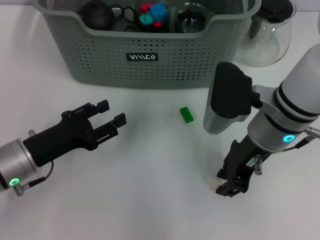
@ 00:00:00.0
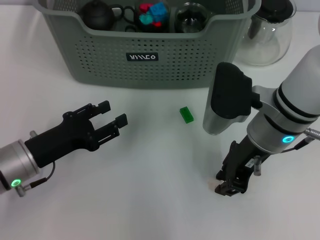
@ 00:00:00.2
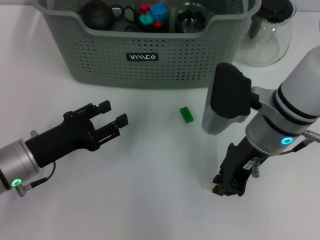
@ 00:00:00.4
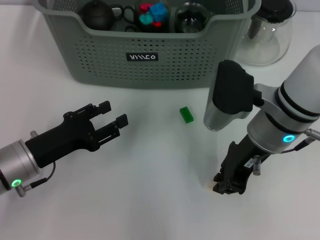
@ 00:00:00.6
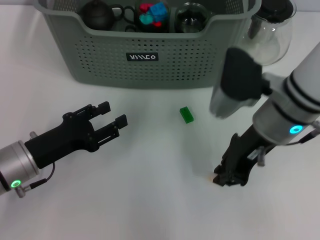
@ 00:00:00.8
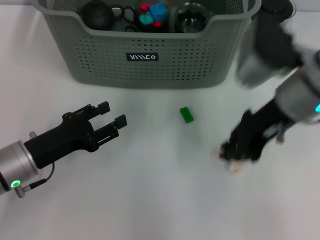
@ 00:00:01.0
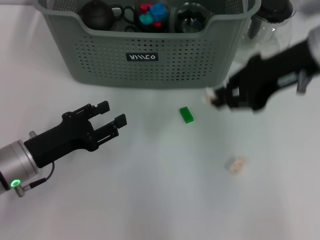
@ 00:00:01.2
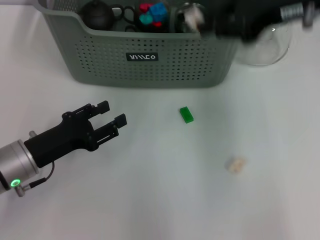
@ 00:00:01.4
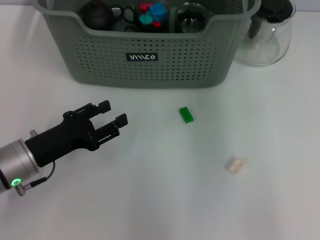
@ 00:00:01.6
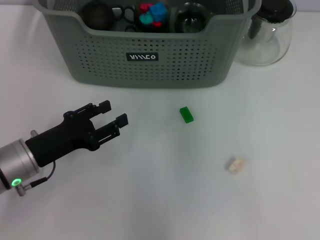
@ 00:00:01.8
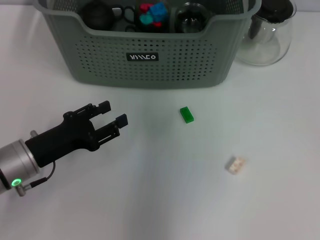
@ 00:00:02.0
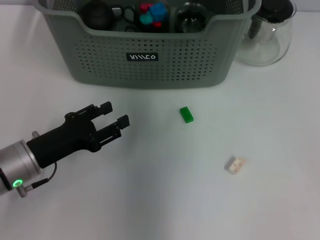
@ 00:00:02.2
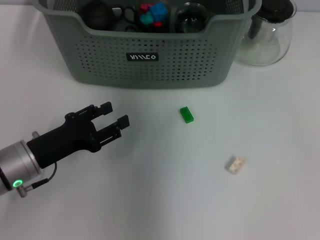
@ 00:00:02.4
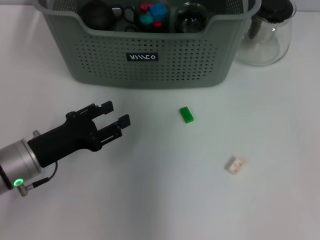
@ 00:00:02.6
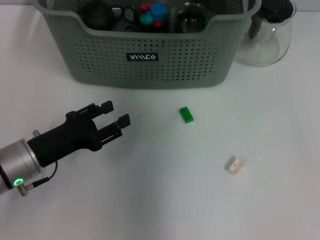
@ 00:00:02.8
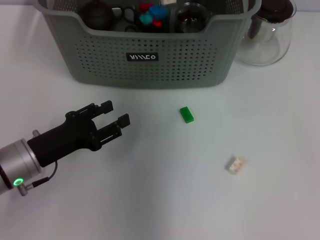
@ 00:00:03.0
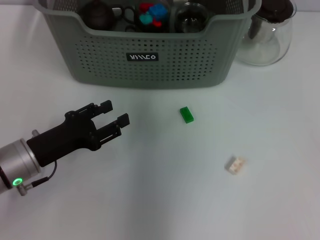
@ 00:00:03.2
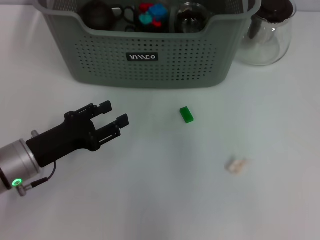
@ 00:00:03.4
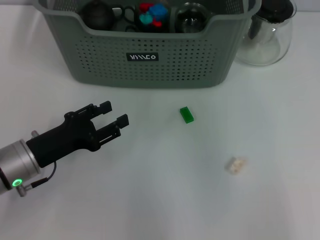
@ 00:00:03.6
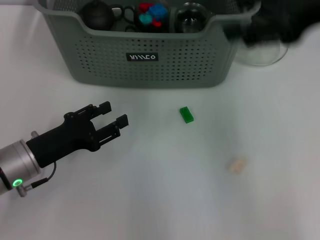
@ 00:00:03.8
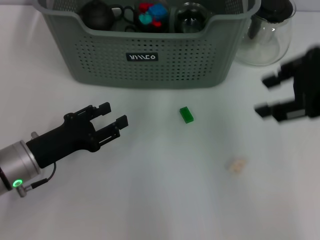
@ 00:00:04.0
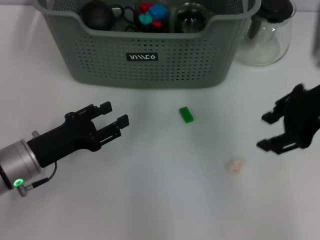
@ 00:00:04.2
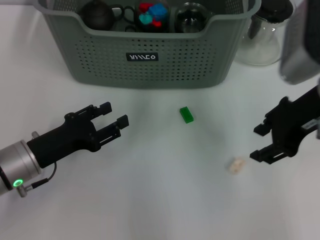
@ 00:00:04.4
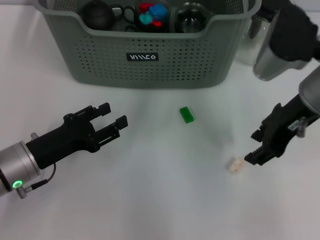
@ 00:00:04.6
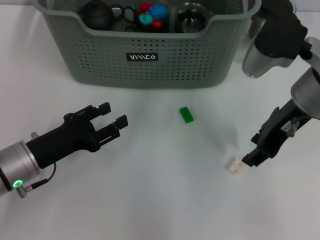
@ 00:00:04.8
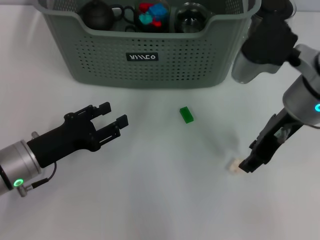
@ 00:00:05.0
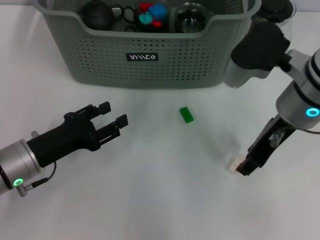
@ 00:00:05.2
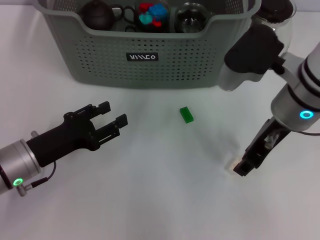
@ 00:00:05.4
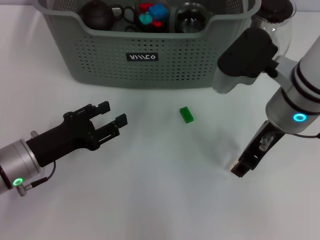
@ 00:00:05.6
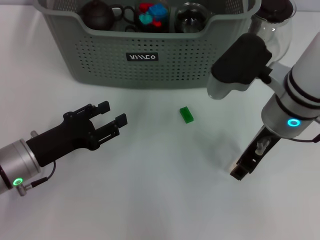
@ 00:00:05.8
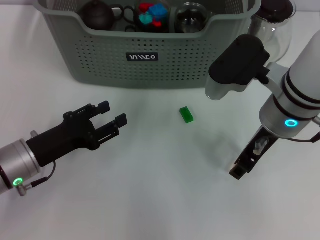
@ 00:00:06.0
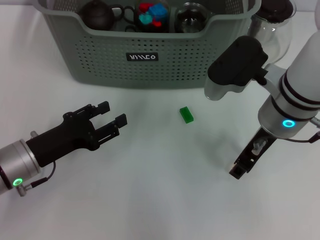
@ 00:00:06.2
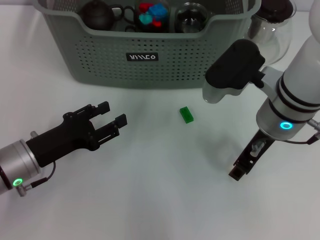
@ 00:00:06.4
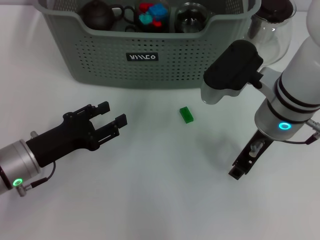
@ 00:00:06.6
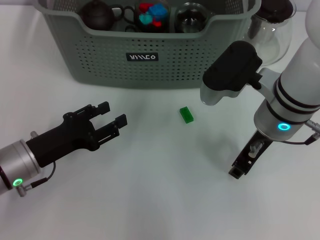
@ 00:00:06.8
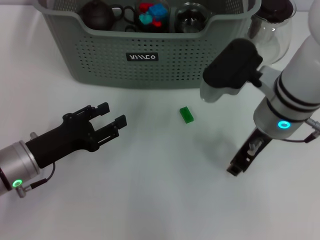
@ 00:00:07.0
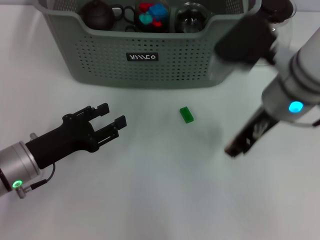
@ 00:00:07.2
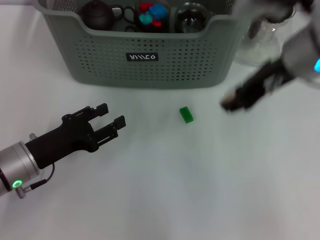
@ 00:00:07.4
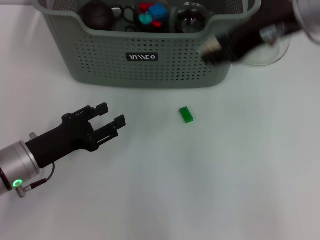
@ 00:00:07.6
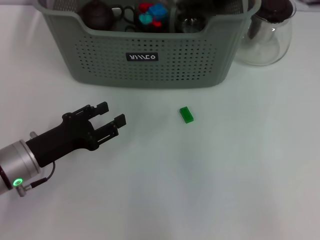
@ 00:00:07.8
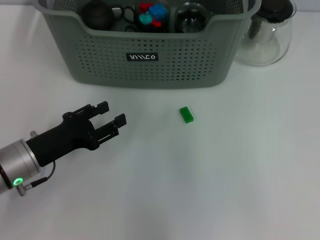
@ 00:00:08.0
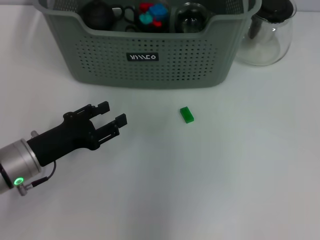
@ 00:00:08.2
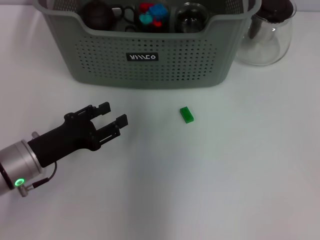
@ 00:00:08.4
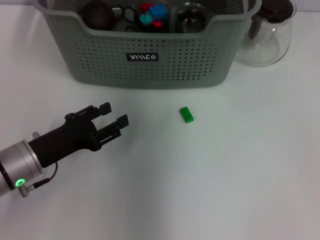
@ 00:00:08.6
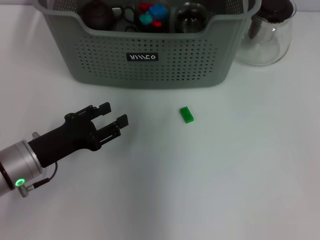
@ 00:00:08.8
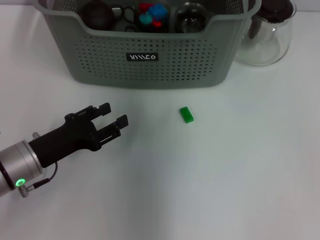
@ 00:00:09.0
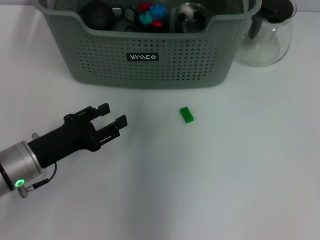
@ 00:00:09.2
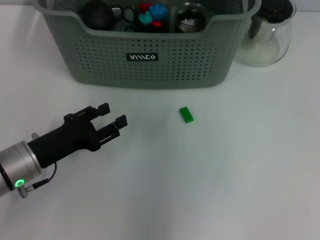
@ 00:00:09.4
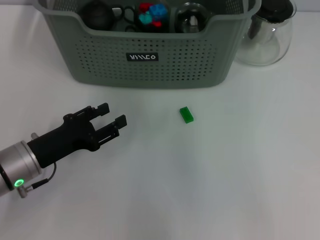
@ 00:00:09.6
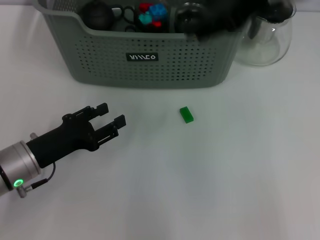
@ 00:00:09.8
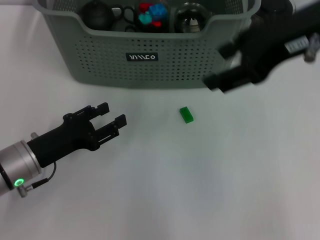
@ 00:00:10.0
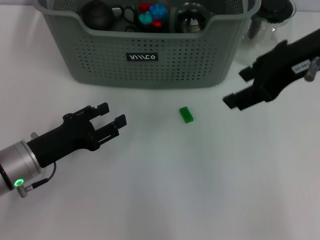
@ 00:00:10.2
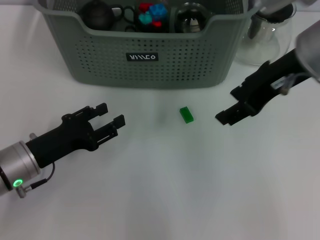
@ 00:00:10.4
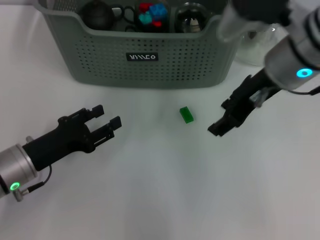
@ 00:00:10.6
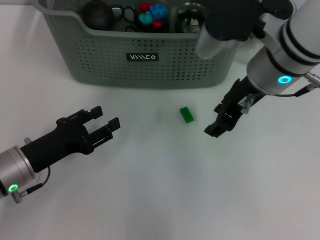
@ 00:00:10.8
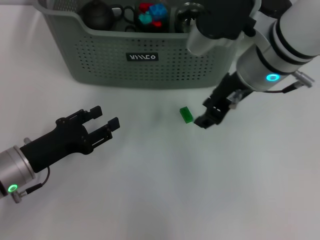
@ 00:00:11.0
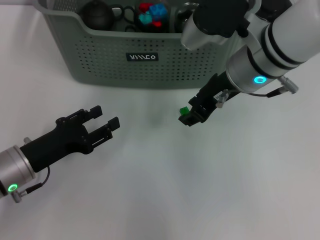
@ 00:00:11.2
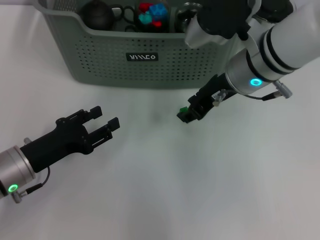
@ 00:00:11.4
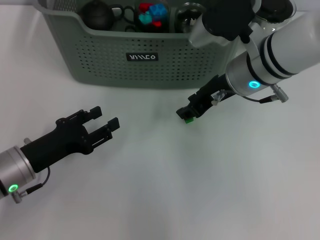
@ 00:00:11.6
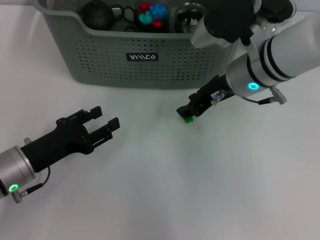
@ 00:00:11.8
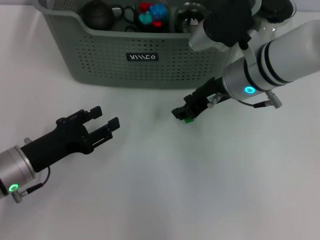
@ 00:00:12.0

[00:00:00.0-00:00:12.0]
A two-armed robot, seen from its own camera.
Task of the whole recording: pick up the teacup on the table and place it into the storage bin, pick up the block on the table and place it into the storage bin.
Step, 00:00:00.6 to 00:00:02.8: Place the white block in the storage box with right gripper.
Step, 00:00:03.0 to 00:00:06.8: Grasp the white block with right gripper.
Step, 00:00:07.0 to 00:00:09.0: Place the white block in the storage box with right gripper.
00:00:00.0 to 00:00:01.6: The right gripper travels upward by approximately 15 cm.
00:00:01.6 to 00:00:03.0: The right gripper is displaced to the left, forward and downward by approximately 15 cm.
00:00:03.0 to 00:00:04.4: The right gripper heads backward and to the right, covering about 20 cm.
00:00:04.4 to 00:00:06.0: The right gripper is displaced to the left and downward by approximately 10 cm.
00:00:06.0 to 00:00:07.6: The right gripper goes some 15 cm upward.
00:00:07.6 to 00:00:09.0: The right gripper heads forward, to the left and downward, covering roughly 20 cm.
00:00:09.0 to 00:00:10.4: The right gripper shifts approximately 20 cm backward and to the right.
00:00:10.4 to 00:00:12.0: The right gripper is displaced downward by about 10 cm.

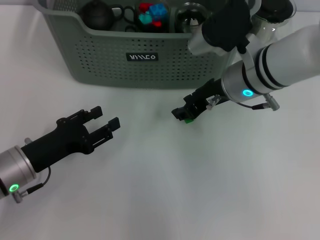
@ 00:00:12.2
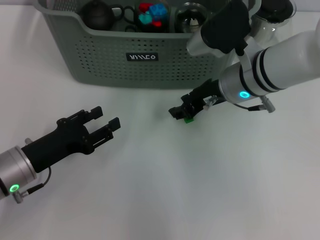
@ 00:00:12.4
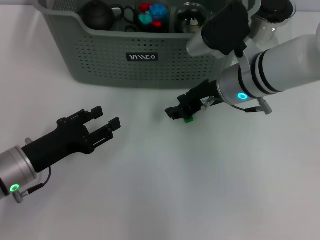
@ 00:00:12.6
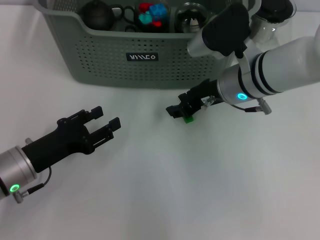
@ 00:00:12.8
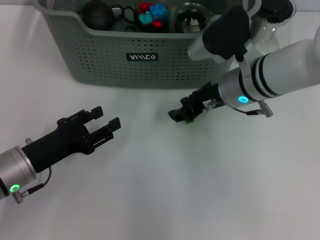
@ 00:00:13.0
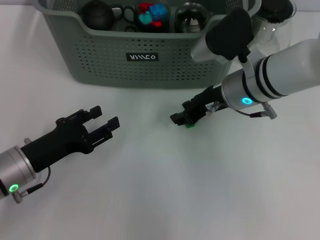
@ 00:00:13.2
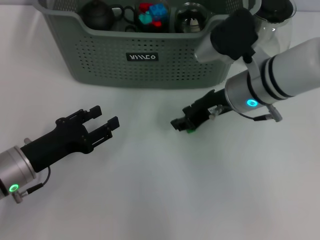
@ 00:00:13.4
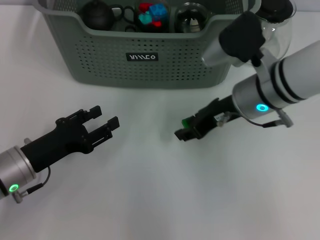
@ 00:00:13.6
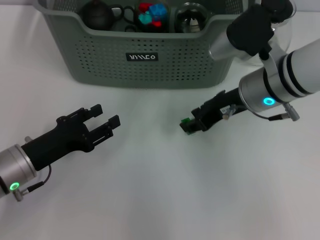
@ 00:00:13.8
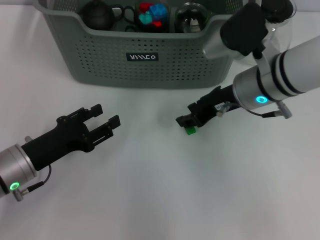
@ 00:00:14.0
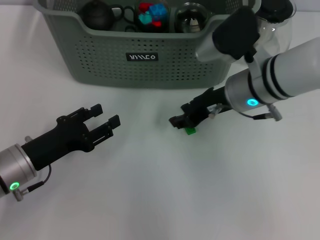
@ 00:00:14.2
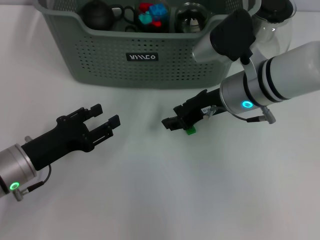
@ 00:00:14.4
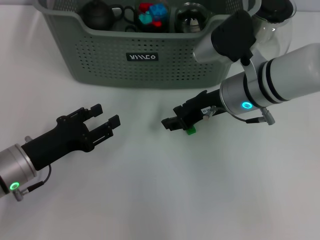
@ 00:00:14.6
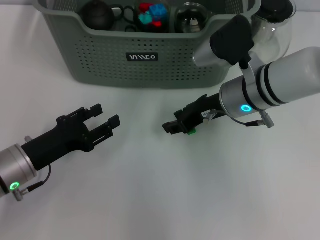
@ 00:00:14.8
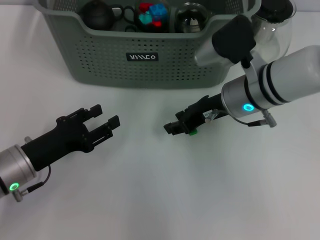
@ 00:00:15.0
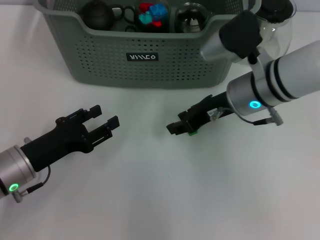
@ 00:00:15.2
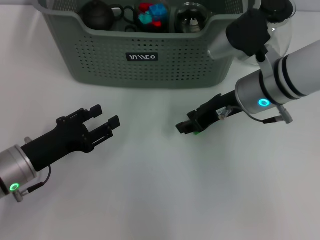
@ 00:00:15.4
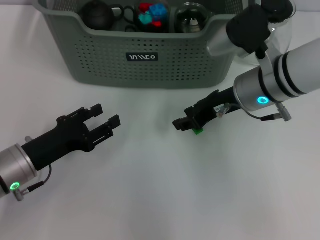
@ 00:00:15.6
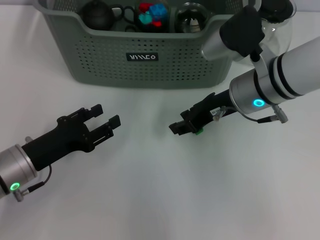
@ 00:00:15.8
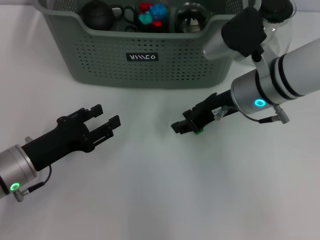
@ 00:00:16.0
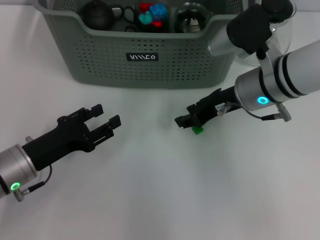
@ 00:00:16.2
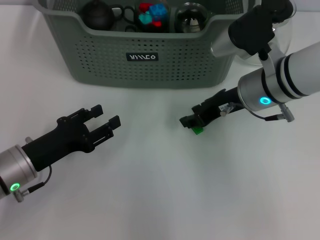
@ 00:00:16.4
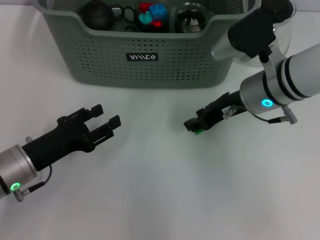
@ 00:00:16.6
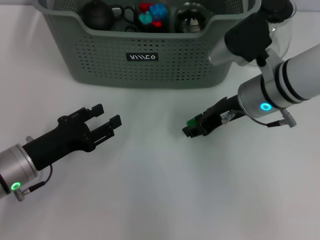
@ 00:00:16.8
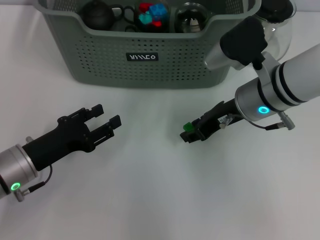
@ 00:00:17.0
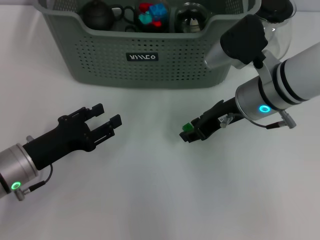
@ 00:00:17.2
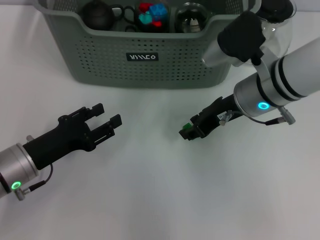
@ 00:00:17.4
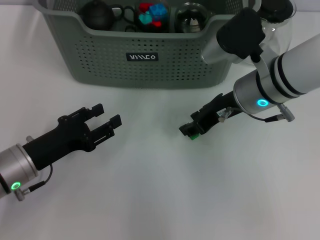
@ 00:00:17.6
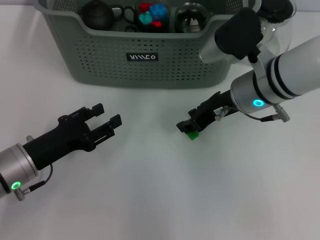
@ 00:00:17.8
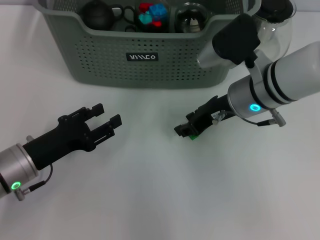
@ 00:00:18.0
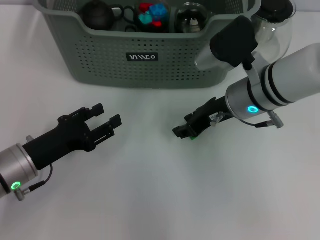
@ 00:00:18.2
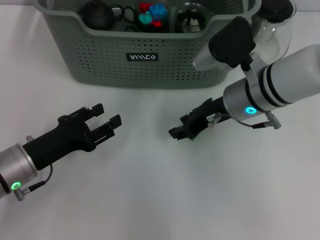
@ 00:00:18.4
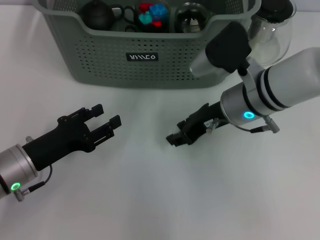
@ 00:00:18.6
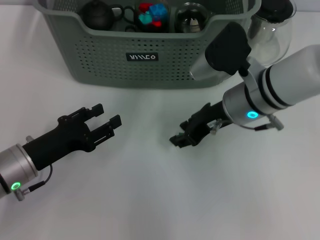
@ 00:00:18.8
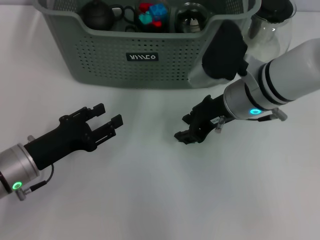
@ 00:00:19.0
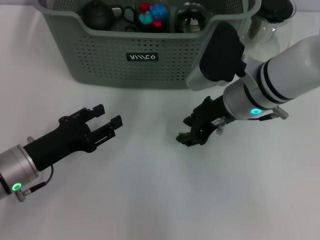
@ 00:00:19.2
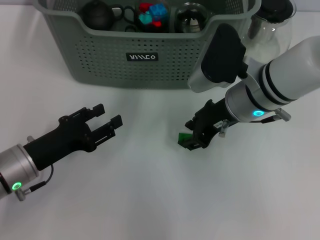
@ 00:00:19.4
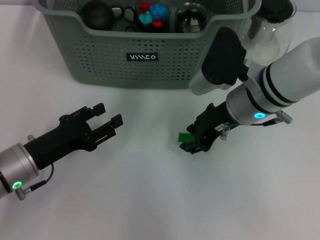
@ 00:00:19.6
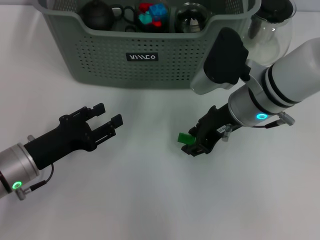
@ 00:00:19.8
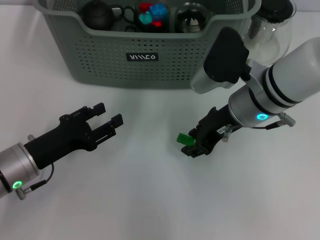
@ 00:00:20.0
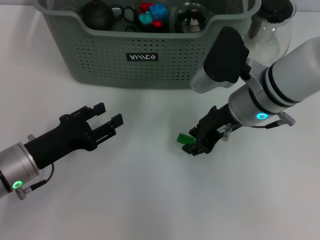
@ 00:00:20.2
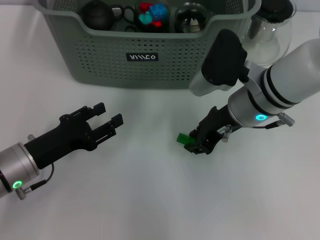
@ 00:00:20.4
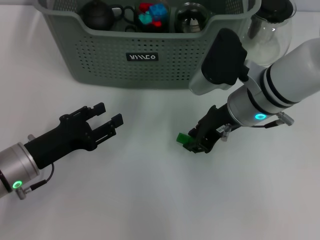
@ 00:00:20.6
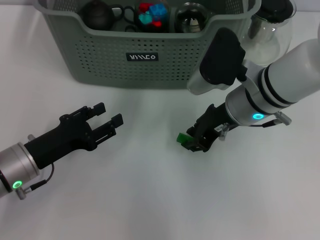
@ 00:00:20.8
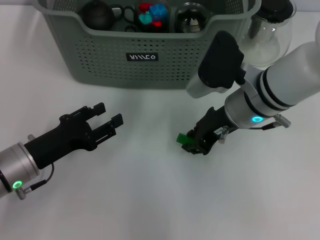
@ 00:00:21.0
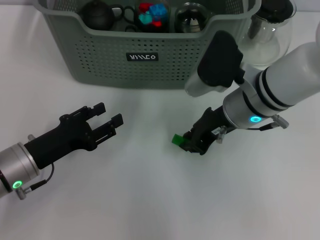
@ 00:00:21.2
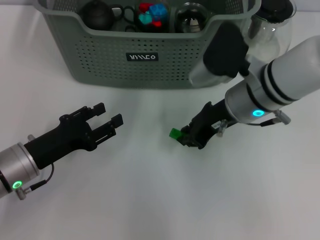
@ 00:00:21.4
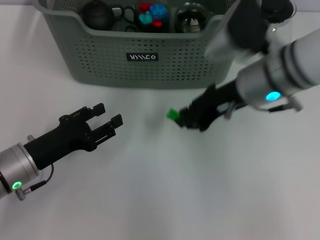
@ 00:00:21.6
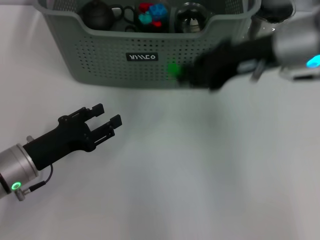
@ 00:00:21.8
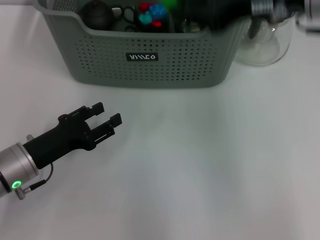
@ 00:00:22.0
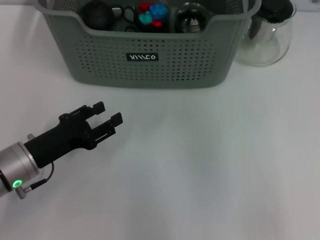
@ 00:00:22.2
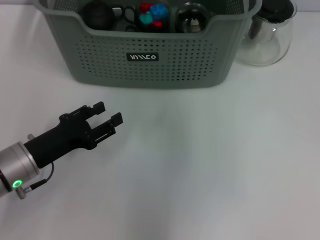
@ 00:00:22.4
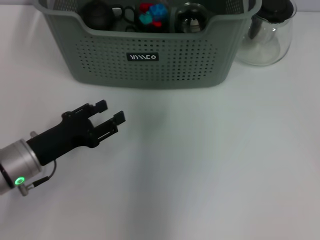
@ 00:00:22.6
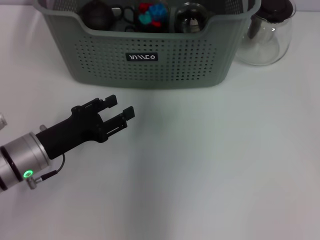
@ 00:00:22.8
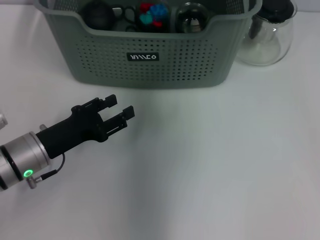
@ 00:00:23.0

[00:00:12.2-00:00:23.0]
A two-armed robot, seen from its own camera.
Task of the whole recording: pick up the teacup on the table and place it into the storage bin, pick up the block on the table and place it into the storage bin.
Step, 00:00:12.2 to 00:00:21.0: Grasp the green block with right gripper.
00:00:12.2 to 00:00:20.0: The grippers stay close to where they were, moving slightly.
00:00:20.0 to 00:00:21.4: Both grippers stay about where they are.
00:00:21.4 to 00:00:23.0: The right gripper travels forward and upward by some 15 cm.
